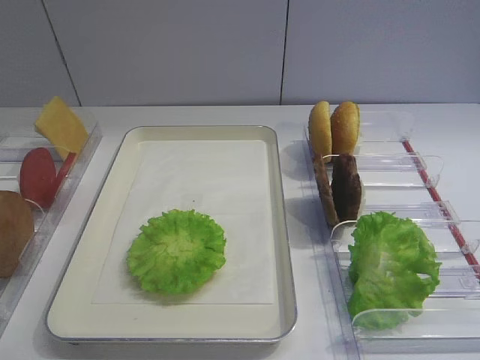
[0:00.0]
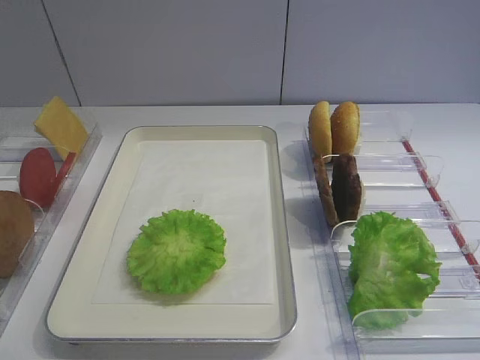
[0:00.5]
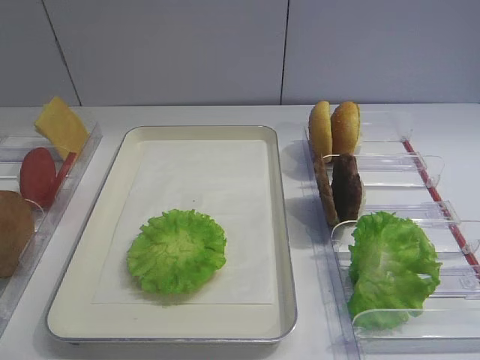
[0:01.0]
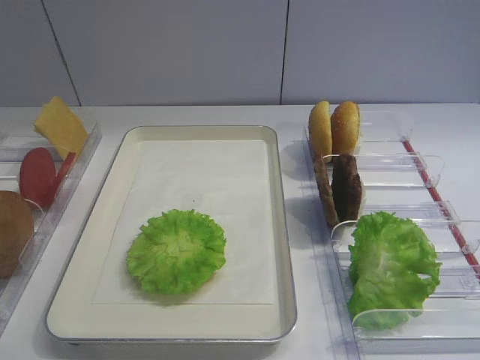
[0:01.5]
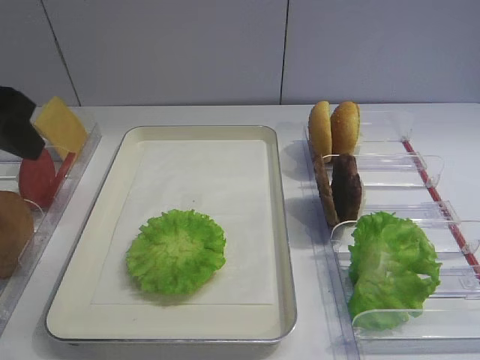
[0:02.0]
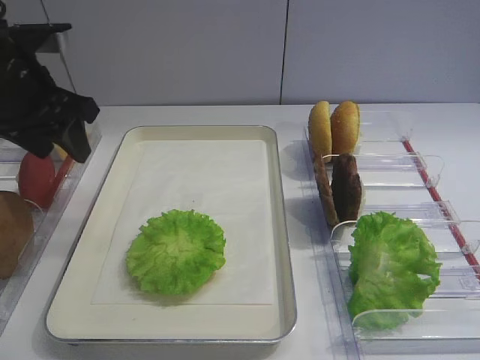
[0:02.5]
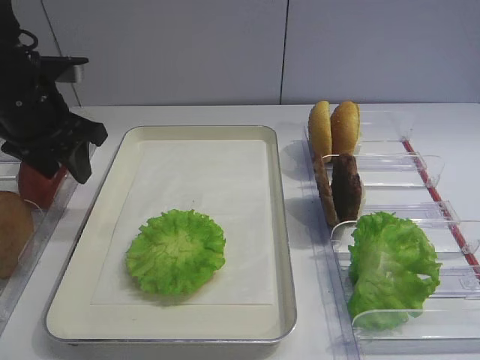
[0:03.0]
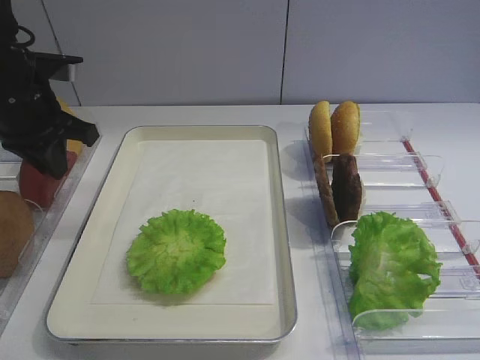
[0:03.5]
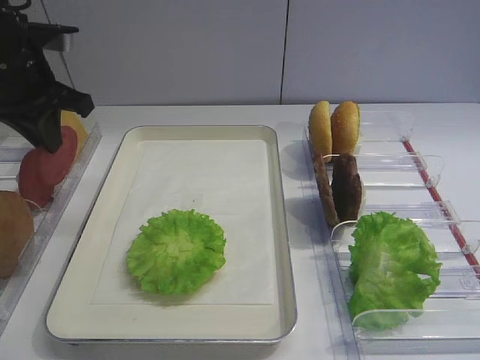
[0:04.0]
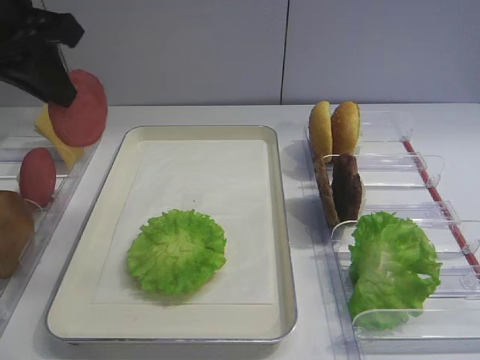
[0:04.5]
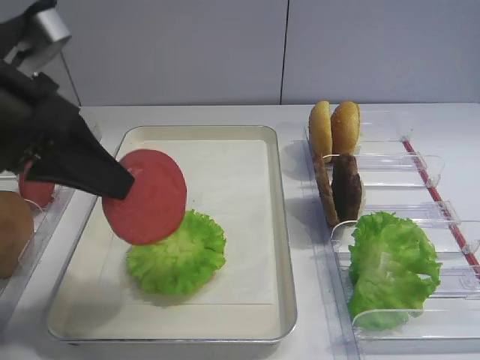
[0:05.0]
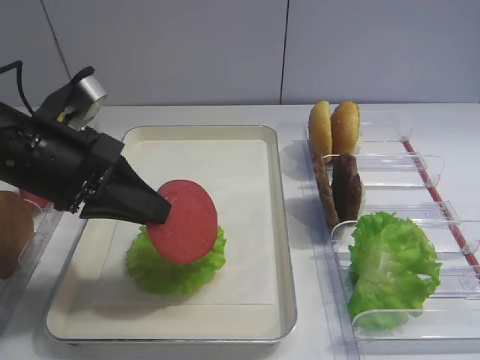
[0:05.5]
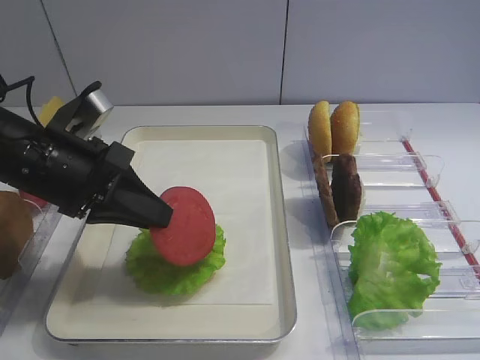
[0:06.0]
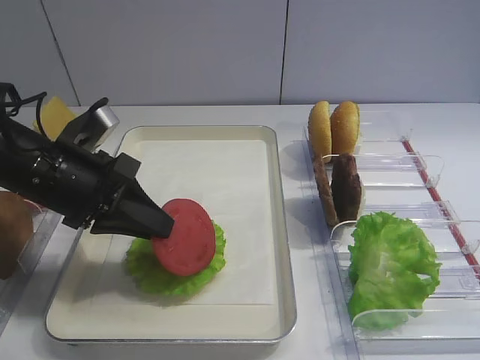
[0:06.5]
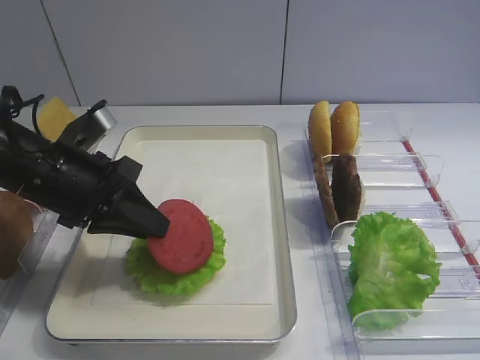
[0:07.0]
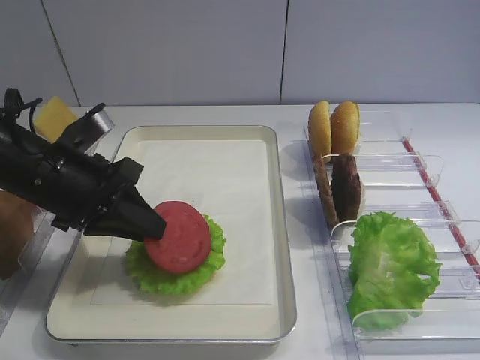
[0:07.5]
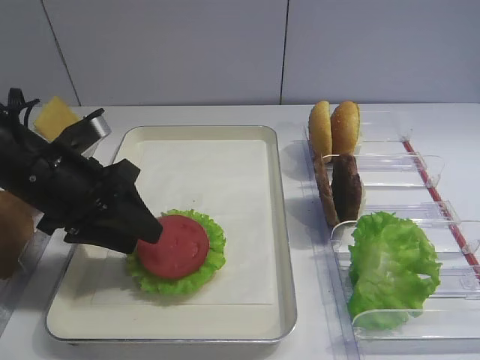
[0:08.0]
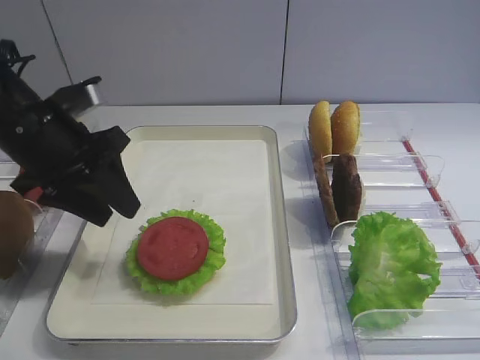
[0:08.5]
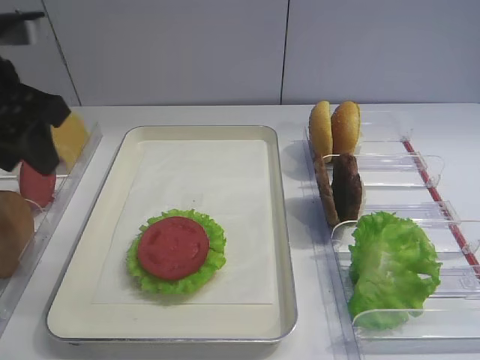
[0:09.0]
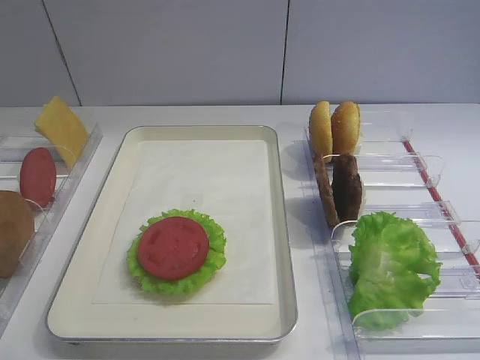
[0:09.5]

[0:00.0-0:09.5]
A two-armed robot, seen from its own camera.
Step, 0:00.0 to 0:04.0: Pick up the tomato slice with the left gripper.
Step, 0:04.5 to 0:08.0: Place the tomato slice on the lettuce leaf with the left gripper.
0:02.0 to 0:04.0: The left gripper moves forward, roughly 15 cm, and closes.
0:04.0 to 0:05.5: The left gripper moves backward and to the right, about 15 cm.
0:05.5 to 0:07.5: The grippers stay close to where they were, moving slightly.
0:07.5 to 0:09.5: The left gripper travels upward, backward and to the left by roughly 20 cm, and opens its fingers.

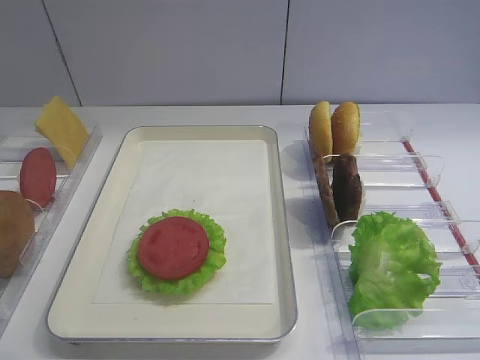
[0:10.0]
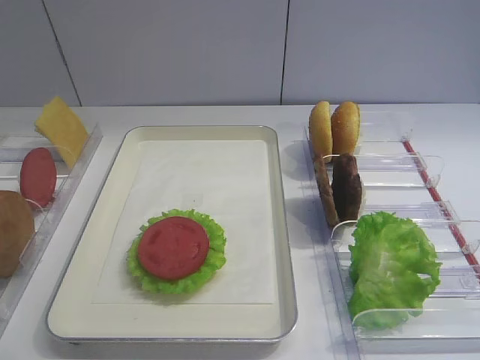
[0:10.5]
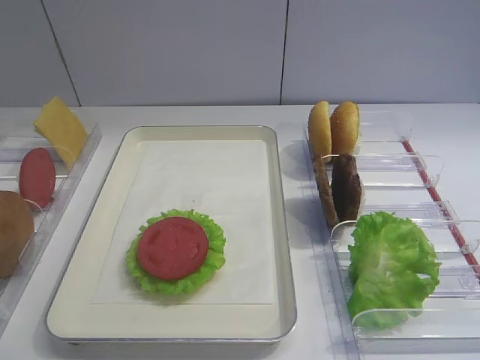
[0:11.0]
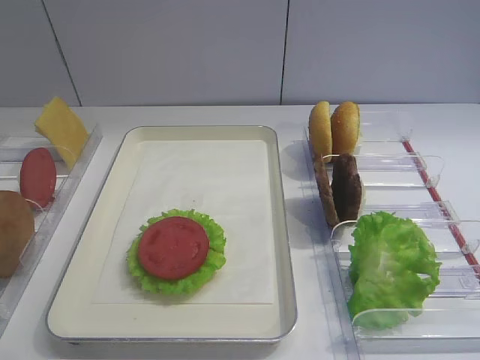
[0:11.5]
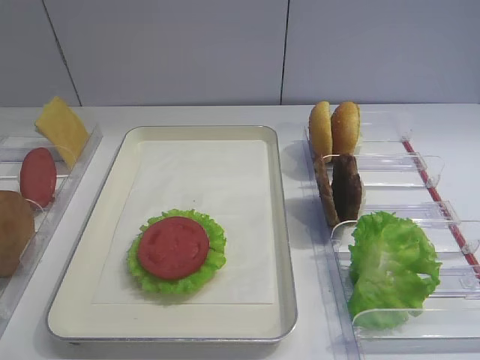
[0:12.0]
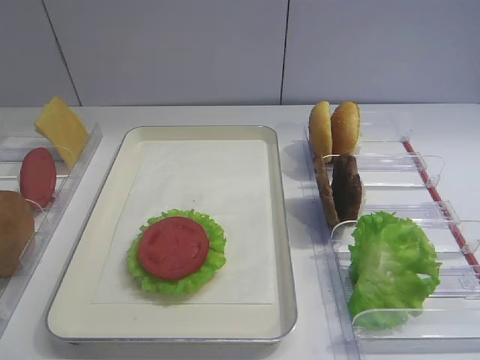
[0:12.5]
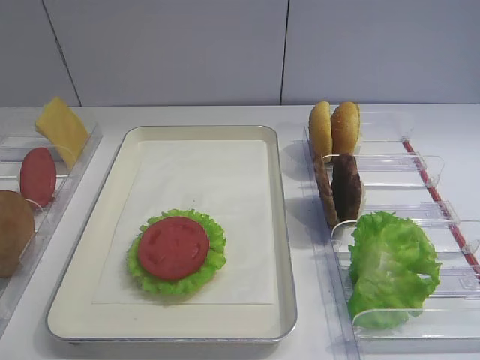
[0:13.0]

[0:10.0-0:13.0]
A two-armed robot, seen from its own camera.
0:11.5 to 0:13.0: The two grippers keep their place.
